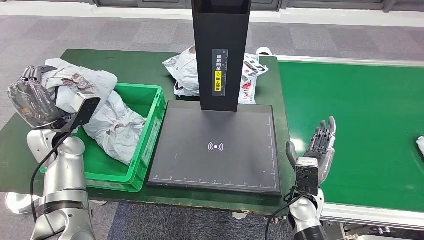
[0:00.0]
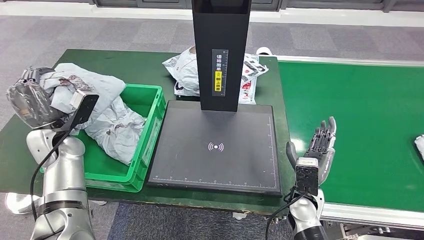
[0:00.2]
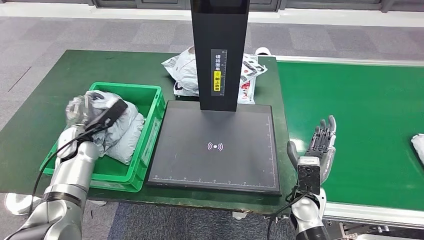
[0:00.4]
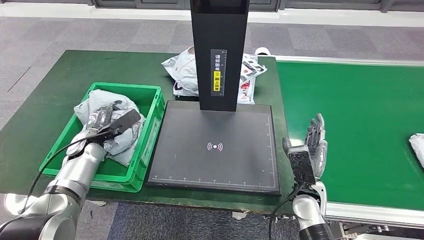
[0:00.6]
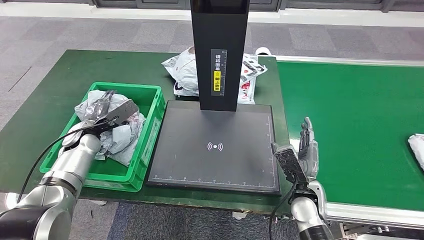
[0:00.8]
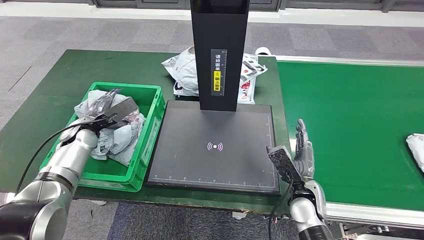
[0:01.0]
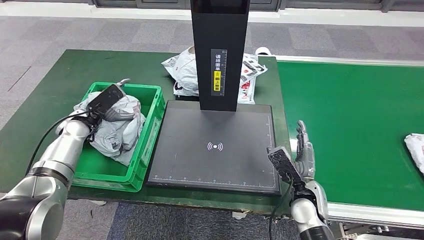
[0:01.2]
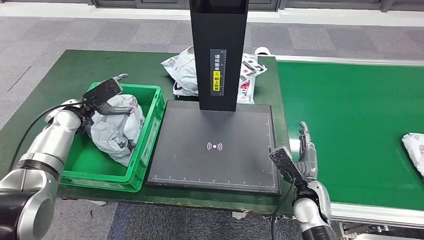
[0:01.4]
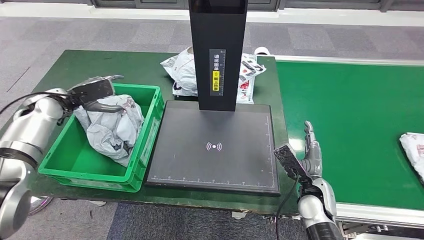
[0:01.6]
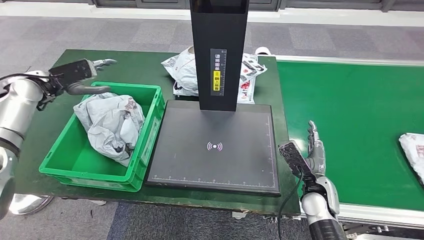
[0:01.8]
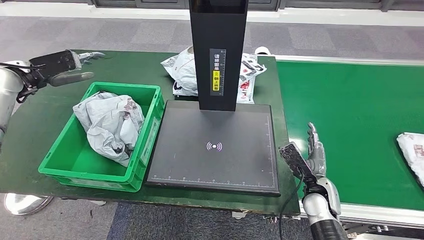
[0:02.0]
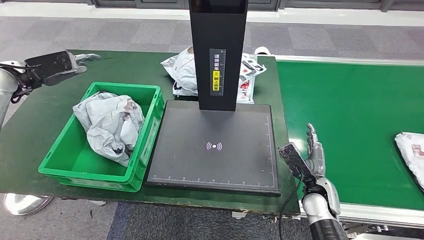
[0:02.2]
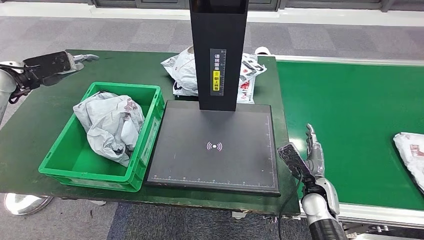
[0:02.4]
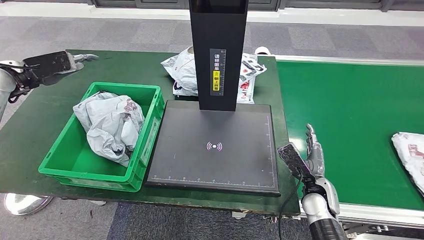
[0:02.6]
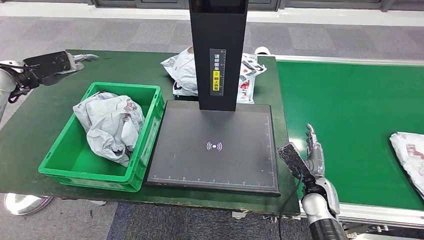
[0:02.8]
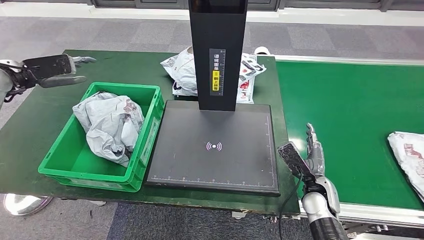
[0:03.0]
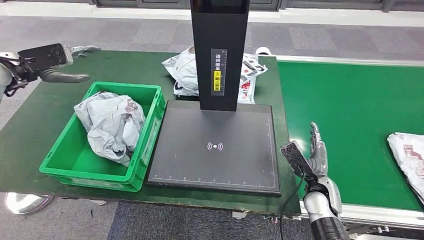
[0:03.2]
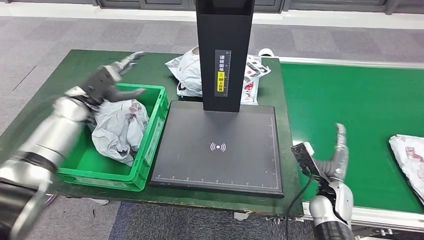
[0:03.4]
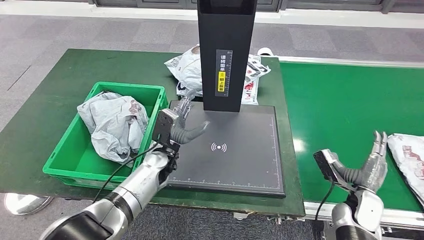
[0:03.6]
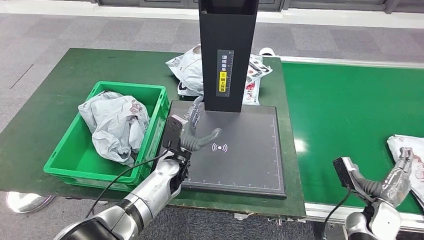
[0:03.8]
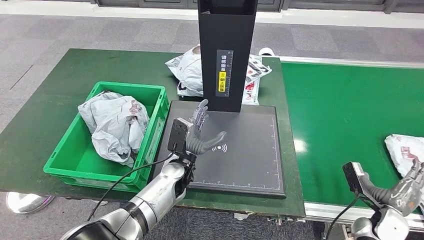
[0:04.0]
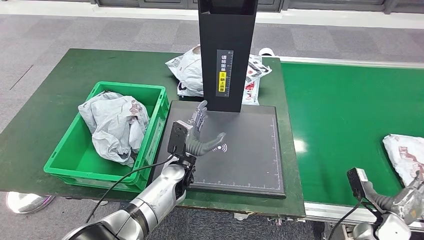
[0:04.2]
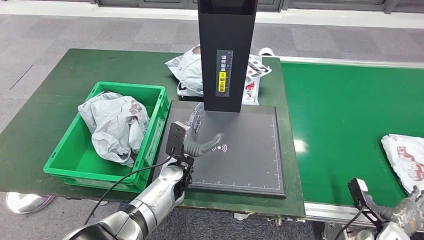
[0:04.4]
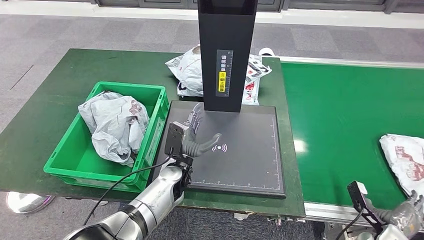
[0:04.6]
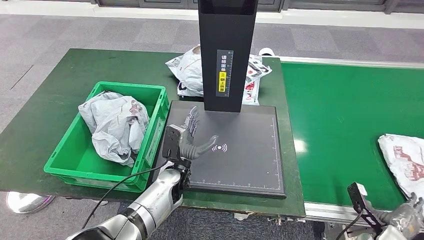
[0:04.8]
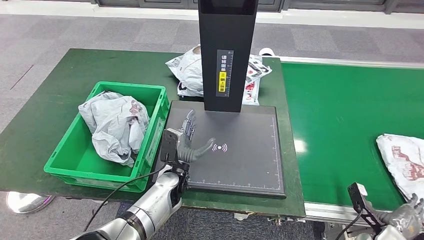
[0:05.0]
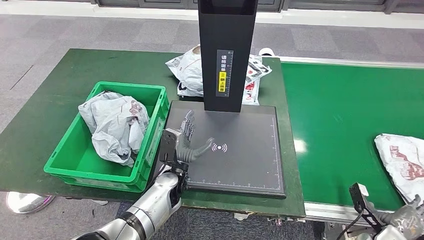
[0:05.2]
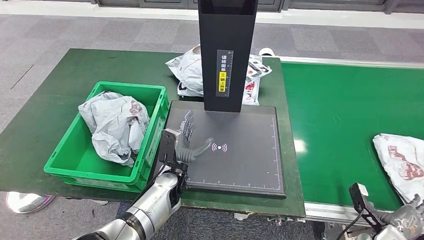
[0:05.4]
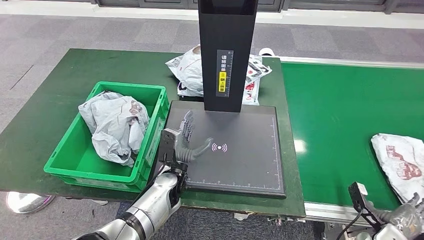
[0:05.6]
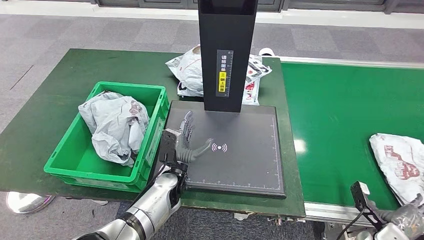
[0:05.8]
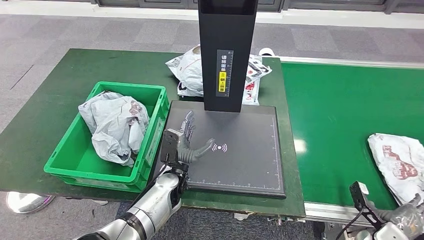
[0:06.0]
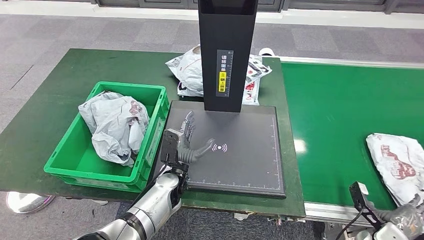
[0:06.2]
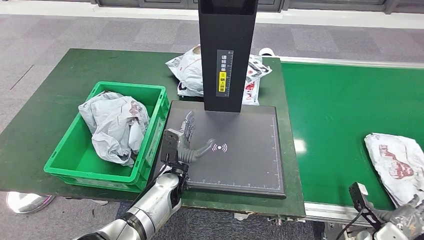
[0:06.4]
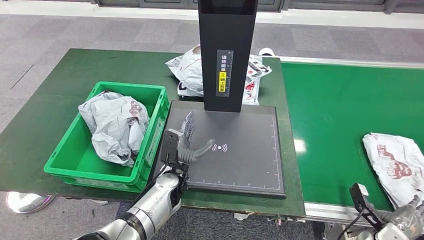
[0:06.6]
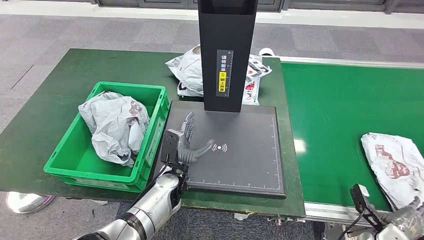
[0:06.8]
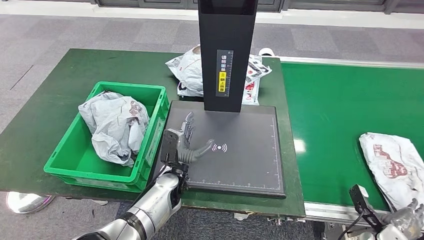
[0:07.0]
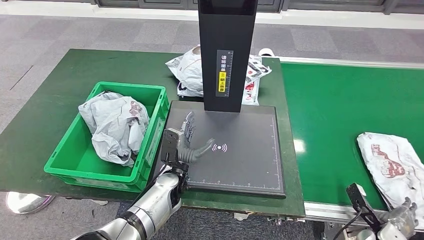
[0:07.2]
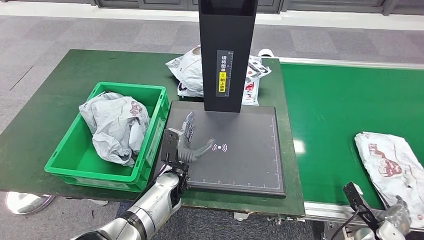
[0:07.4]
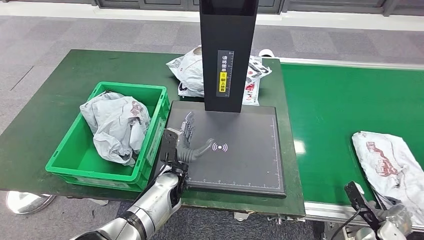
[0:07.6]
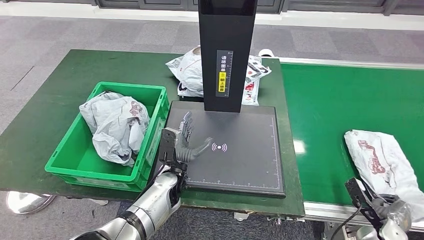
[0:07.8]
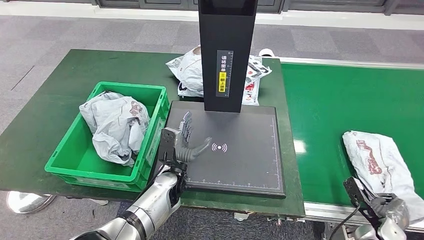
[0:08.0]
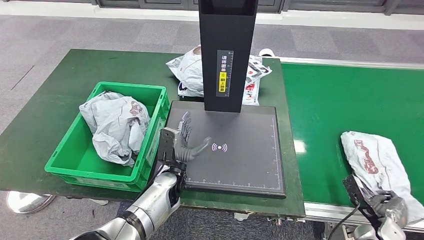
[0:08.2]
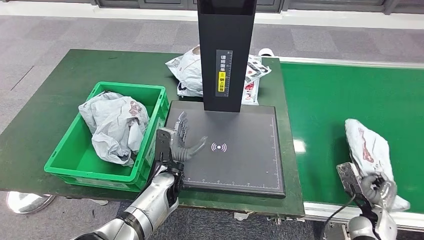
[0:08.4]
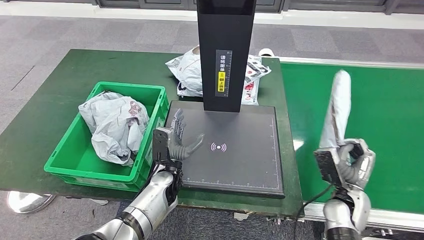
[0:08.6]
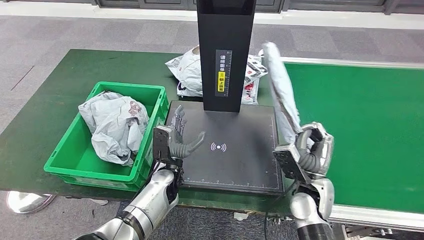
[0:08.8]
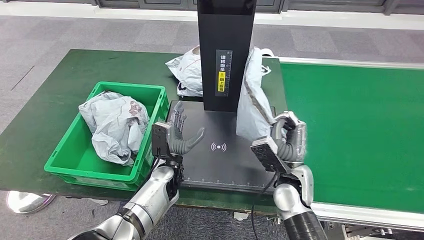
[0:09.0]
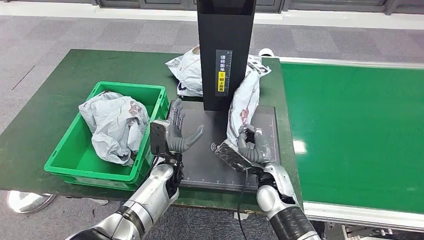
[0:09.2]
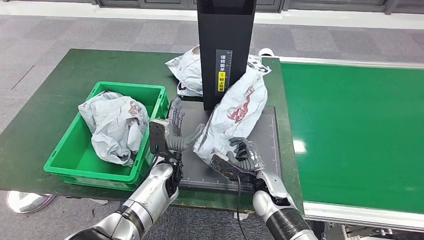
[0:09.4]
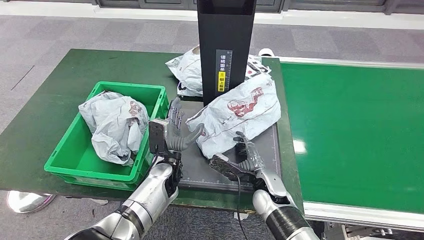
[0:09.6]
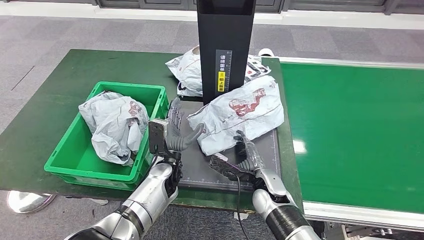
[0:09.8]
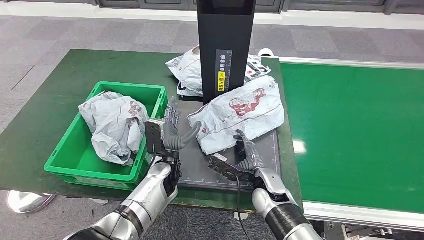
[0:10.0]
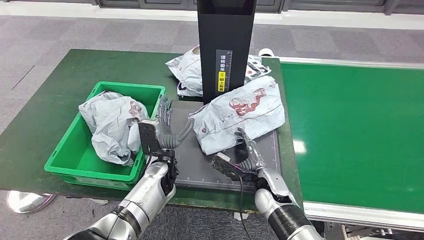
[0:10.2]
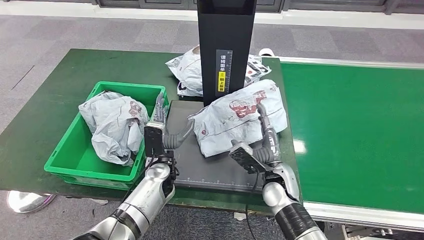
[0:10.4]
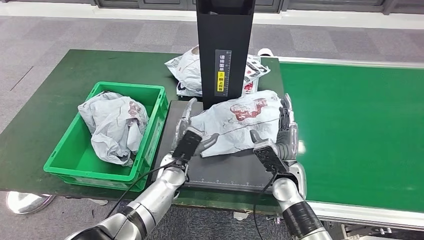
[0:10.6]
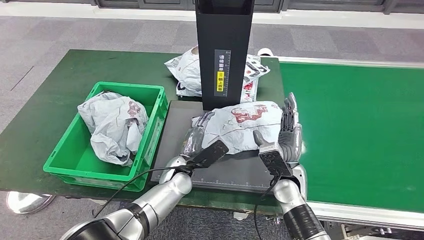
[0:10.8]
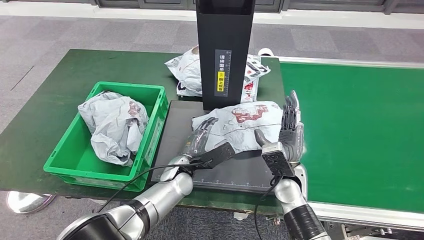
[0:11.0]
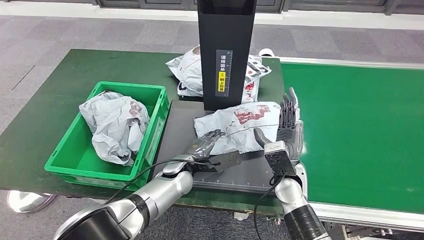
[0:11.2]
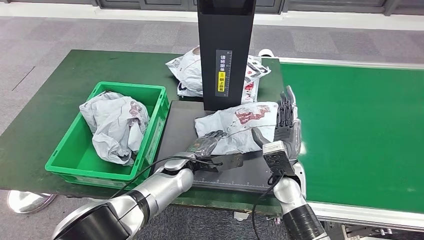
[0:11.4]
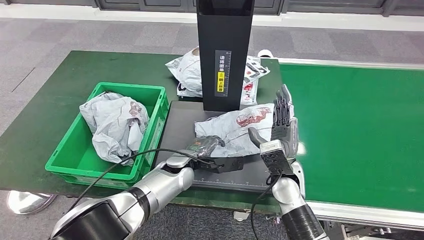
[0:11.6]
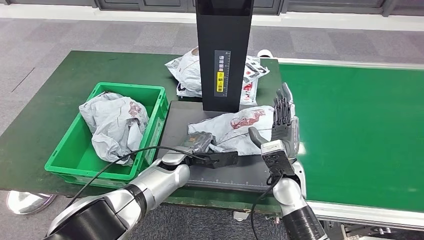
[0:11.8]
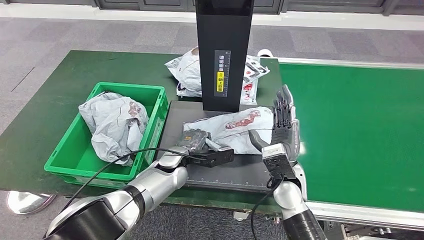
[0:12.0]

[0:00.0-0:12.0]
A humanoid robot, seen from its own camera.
Step, 0:00.0 to 0:02.4: Place the parcel into the delivery box.
Step, 0:02.6 to 0:09.2: Pick up the parcel from the conveyor belt.
Step, 0:09.4 to 0:10.6: Place the parcel onto the inbound machine.
0:01.6 to 0:03.0: The left hand shifts roughly 10 cm upward and to the left.
0:04.4 to 0:06.0: The hands make only small movements.
0:06.0 to 0:07.6: The hands stay close to where they were, moving slightly.

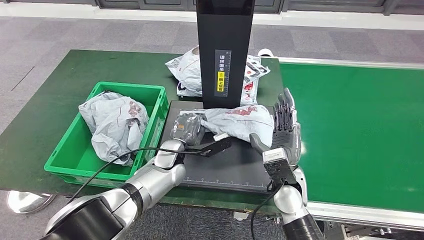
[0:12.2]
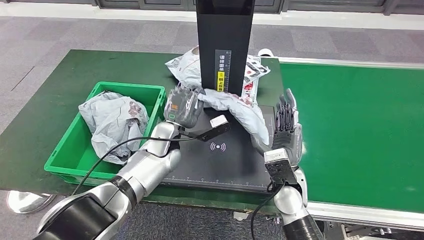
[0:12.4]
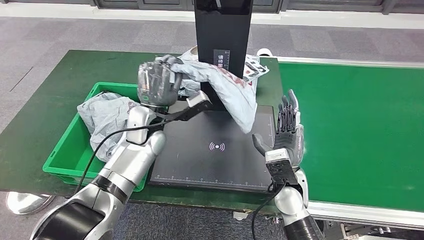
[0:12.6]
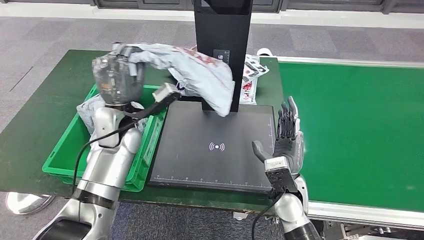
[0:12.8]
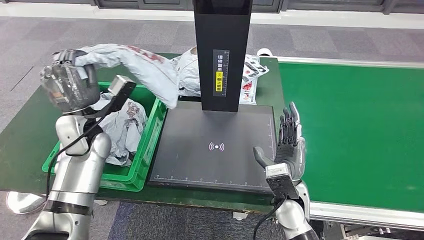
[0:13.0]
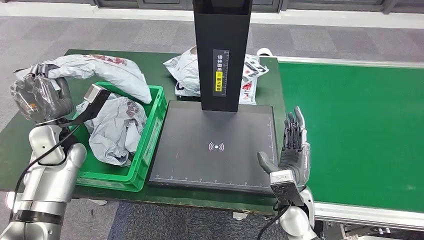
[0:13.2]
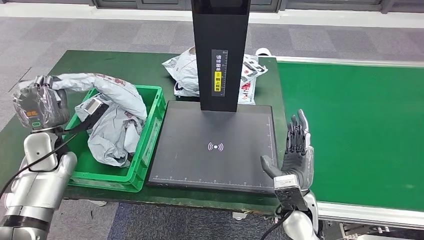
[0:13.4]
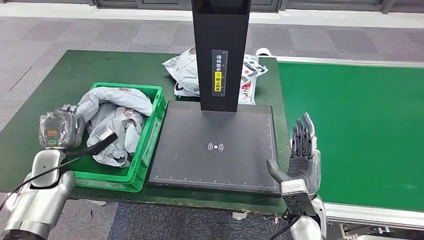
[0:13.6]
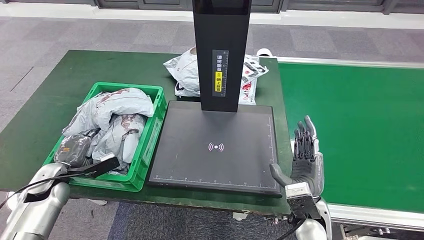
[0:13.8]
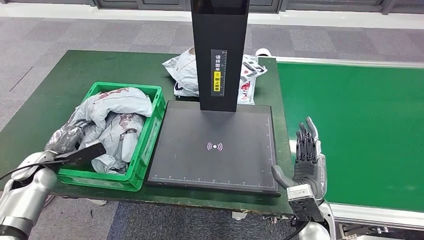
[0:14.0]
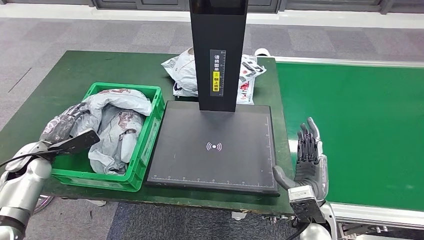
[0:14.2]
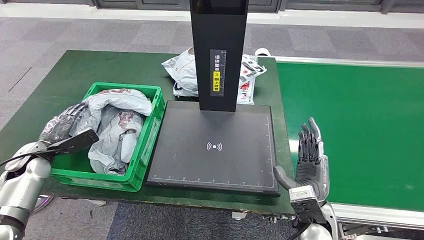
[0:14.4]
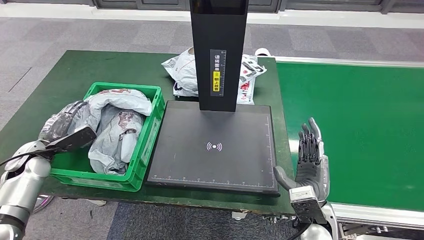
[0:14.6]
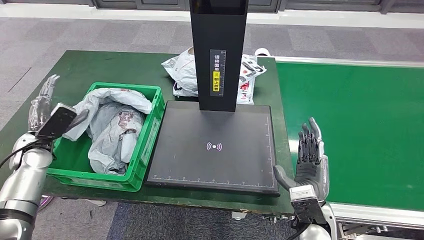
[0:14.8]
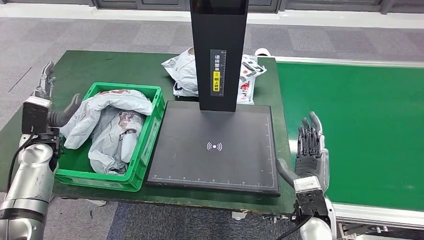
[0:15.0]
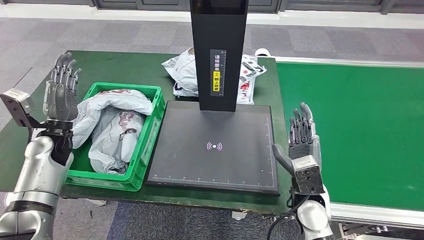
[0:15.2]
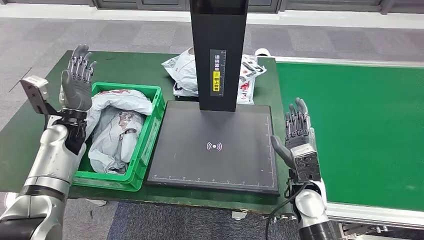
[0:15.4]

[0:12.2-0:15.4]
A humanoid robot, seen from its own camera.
Step, 0:13.2 to 0:15.2: Place the parcel into the delivery box.
0:13.8 to 0:15.4: The right hand is displaced forward by about 5 cm, while the left hand is displaced forward, upward and to the right by roughly 15 cm.
